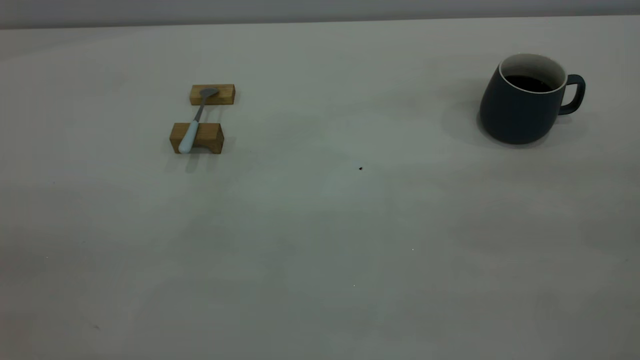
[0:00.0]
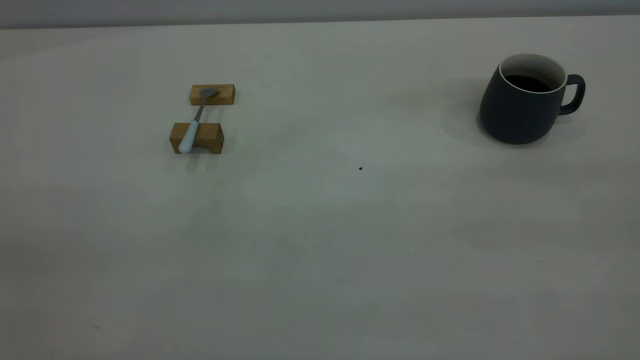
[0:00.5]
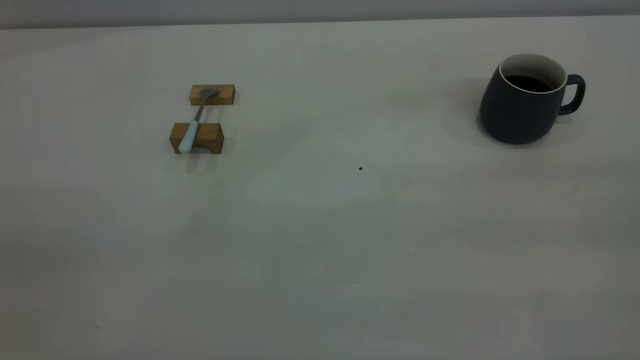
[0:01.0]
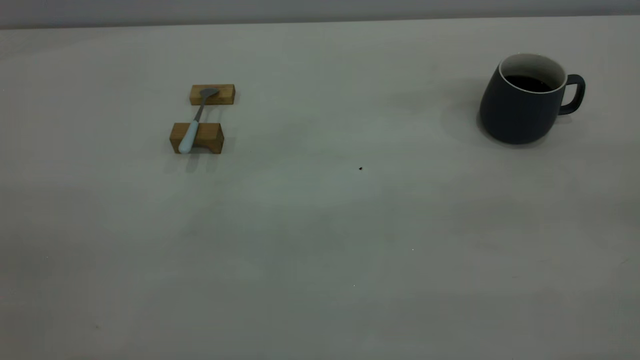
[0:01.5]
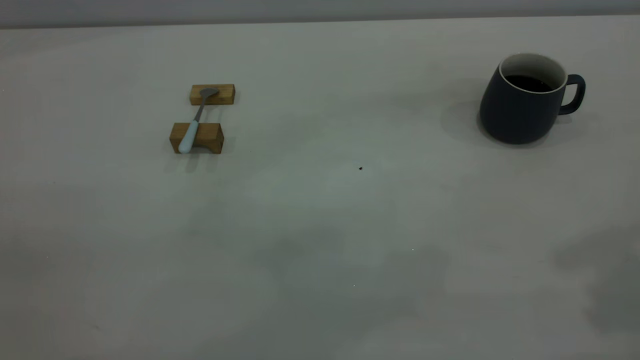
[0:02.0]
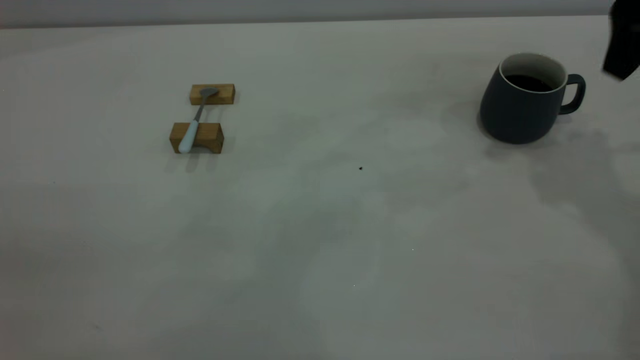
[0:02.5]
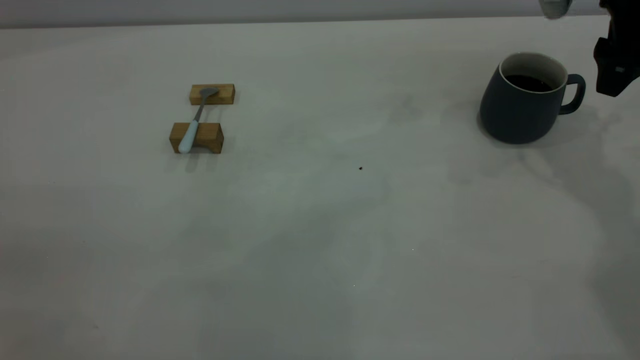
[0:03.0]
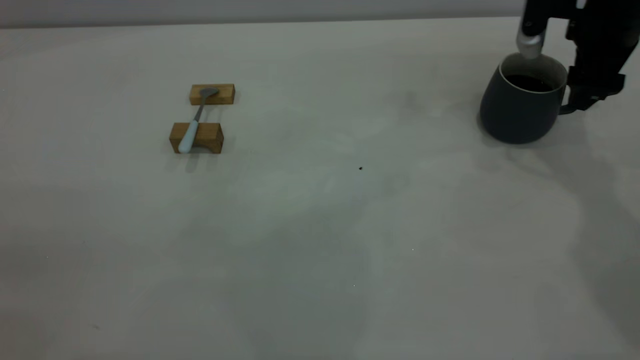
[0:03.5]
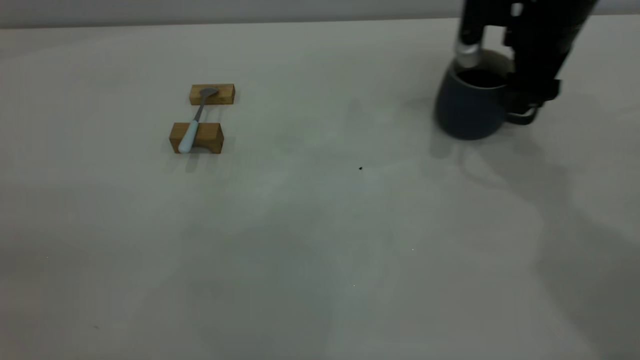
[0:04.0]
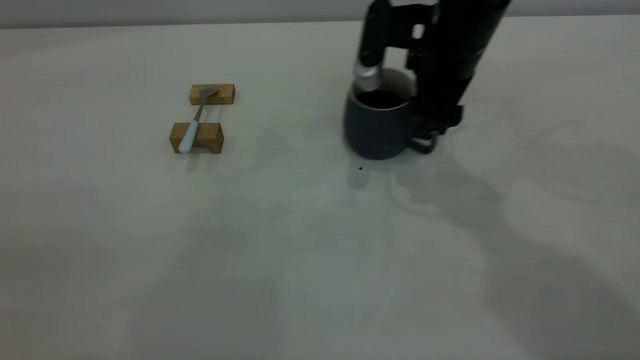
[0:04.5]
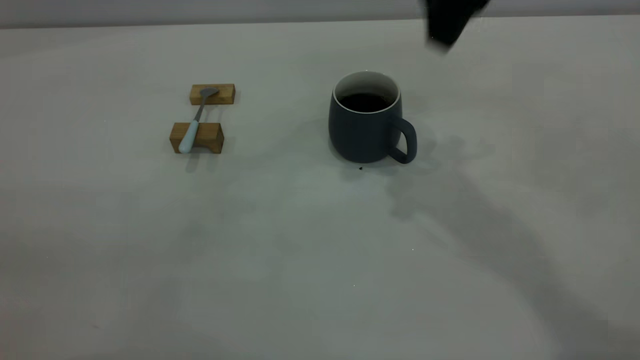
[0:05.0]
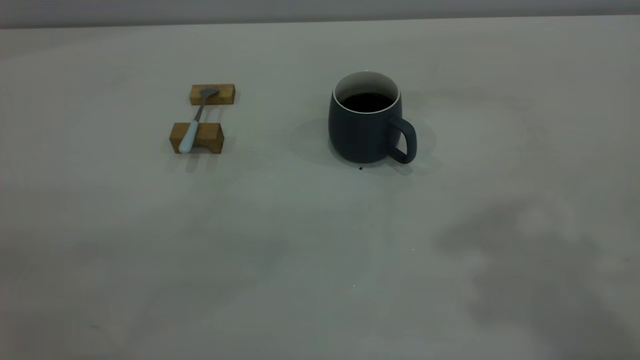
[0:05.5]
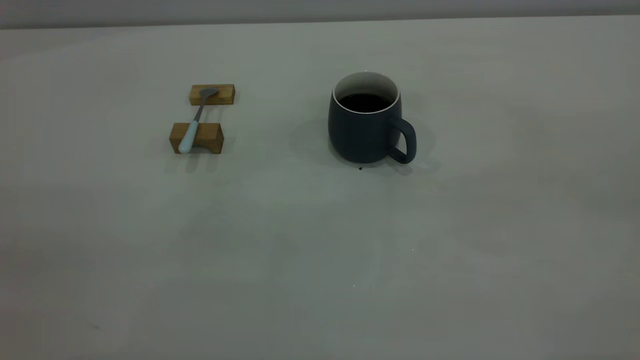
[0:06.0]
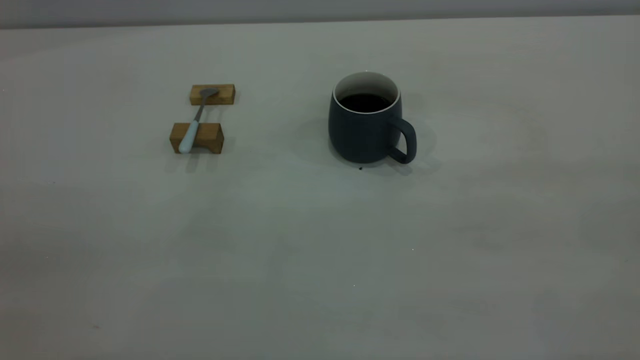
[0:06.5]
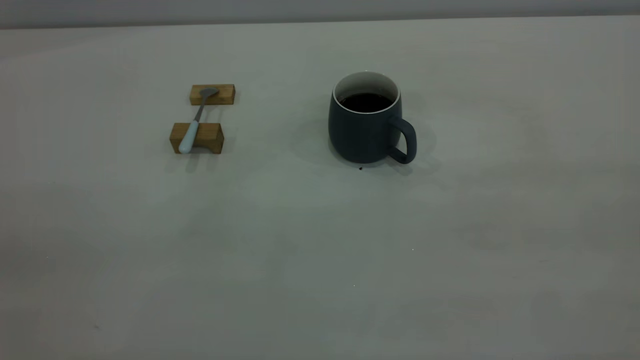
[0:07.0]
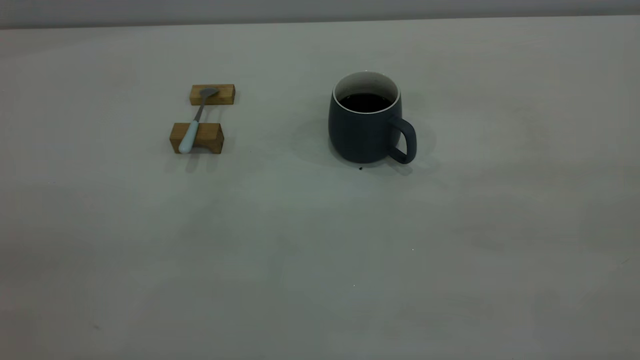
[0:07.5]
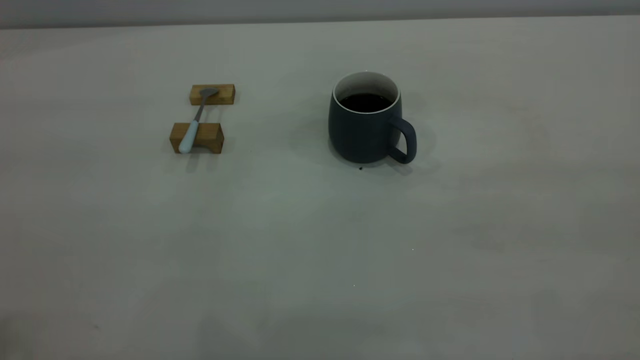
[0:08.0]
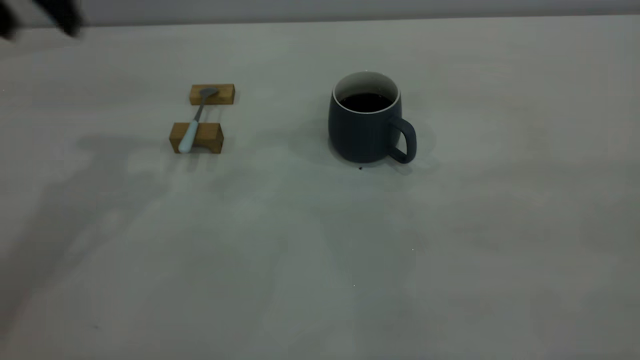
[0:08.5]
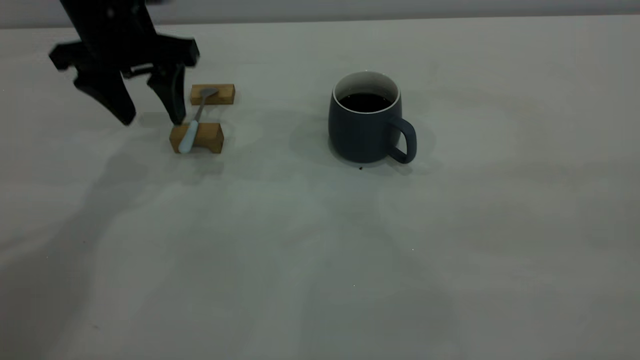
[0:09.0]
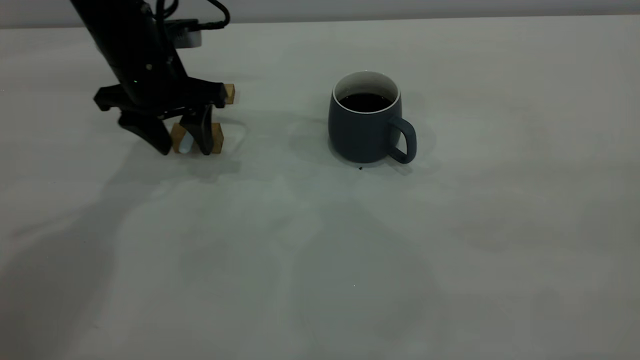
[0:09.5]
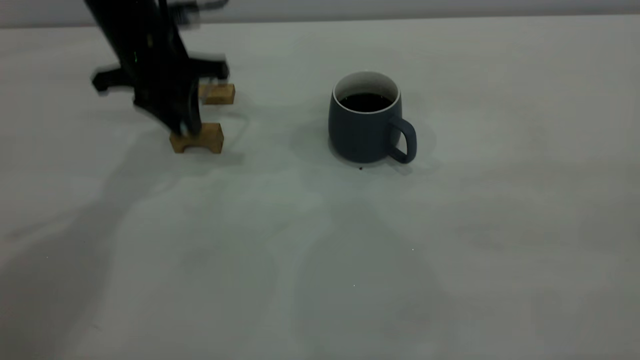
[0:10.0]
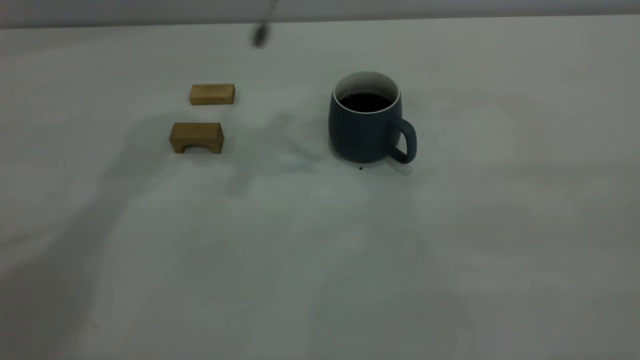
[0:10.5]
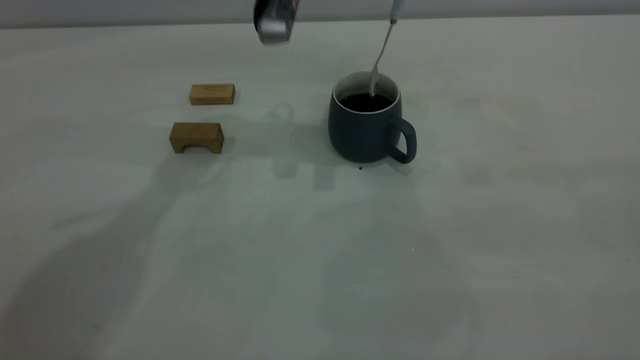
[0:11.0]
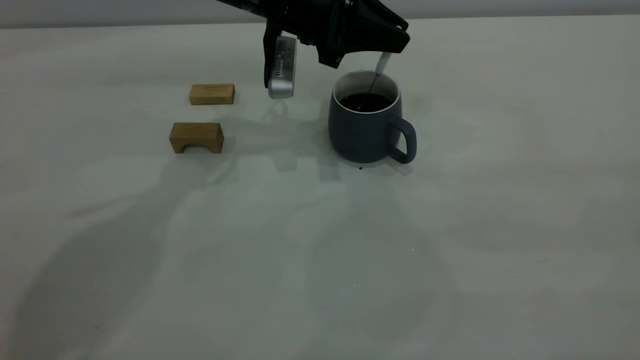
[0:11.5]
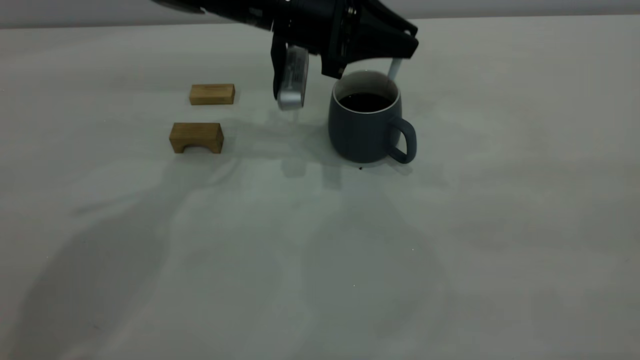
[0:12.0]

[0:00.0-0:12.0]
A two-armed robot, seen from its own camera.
Step, 0:00.0 to 0:04.5: Move the cup with coffee to the center of view.
Step, 0:05.0 to 0:10.0: Pick up the spoon.
0:02.0 to 0:04.0: The right gripper travels downward and forward by about 30 cm.
0:04.0 to 0:06.0: The right gripper shifts roughly 40 cm backward and upward.
0:08.0 to 0:10.0: The left gripper goes about 35 cm forward and downward, and closes its fingers.
0:10.0 to 0:12.0: The left gripper goes approximately 15 cm to the right, and moves about 10 cm upward and comes back.

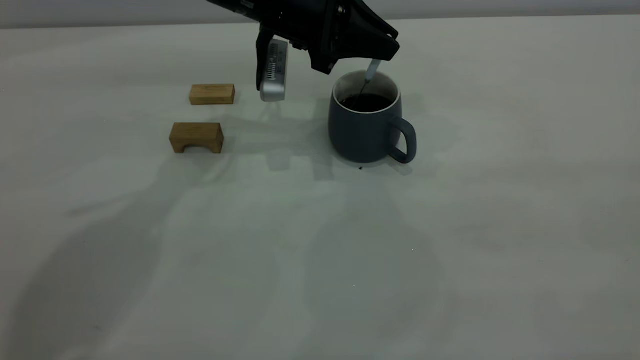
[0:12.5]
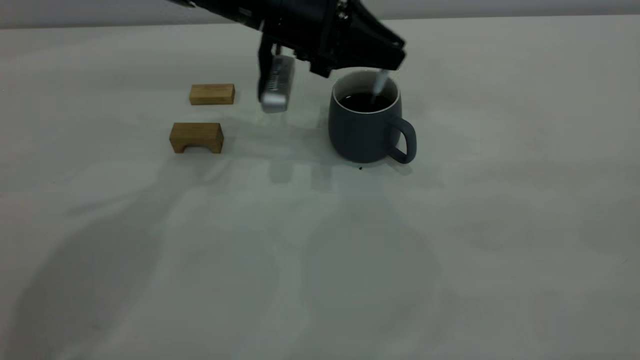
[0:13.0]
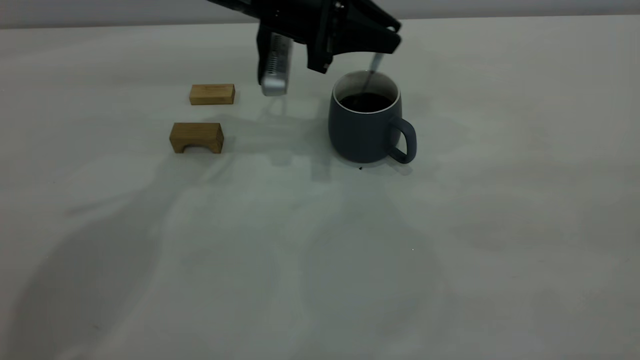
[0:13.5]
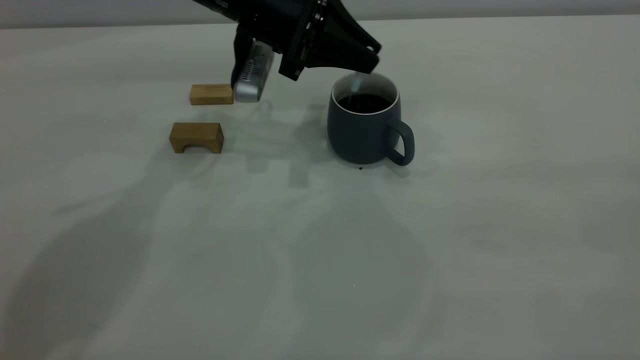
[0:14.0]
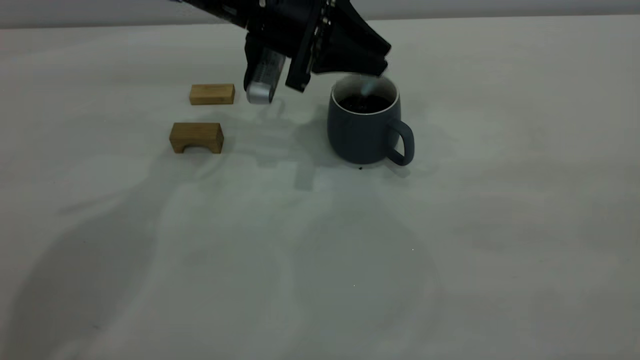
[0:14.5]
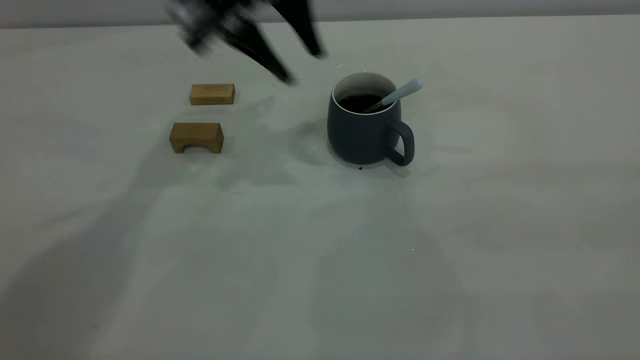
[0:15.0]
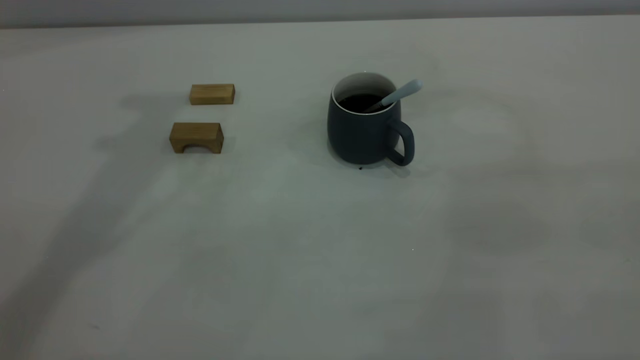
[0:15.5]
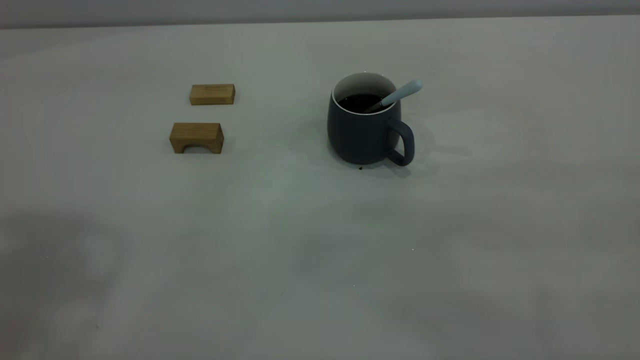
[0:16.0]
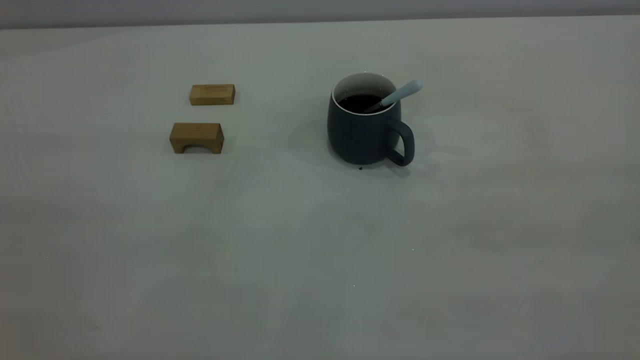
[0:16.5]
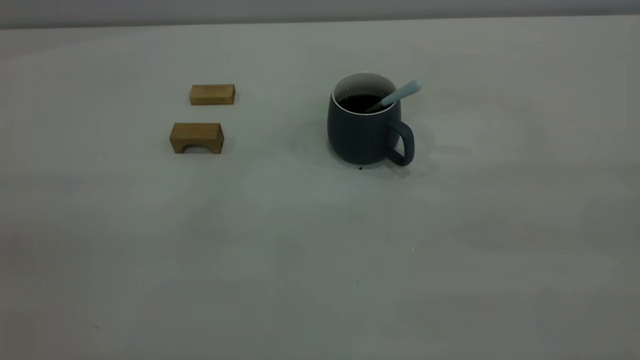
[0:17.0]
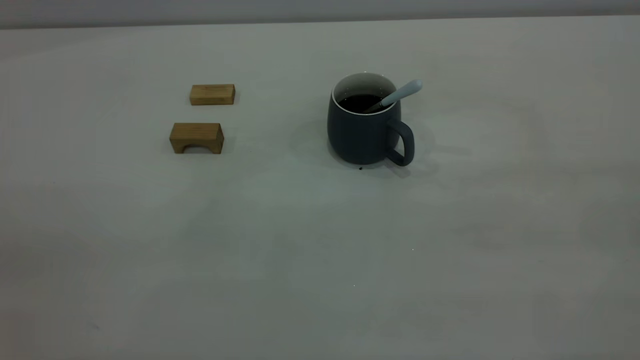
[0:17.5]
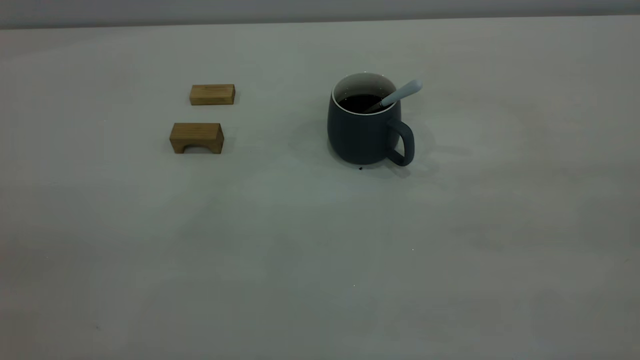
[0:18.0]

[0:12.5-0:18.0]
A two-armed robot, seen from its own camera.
Step, 0:12.5 to 0:14.5: Stir the coffee in the cup.
0:12.5 to 0:14.5: The grippers make only small movements.
0:14.5 to 0:16.0: The left gripper goes some 40 cm upward, backward and to the left.

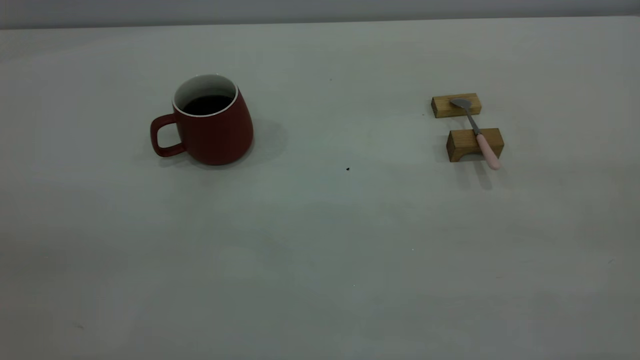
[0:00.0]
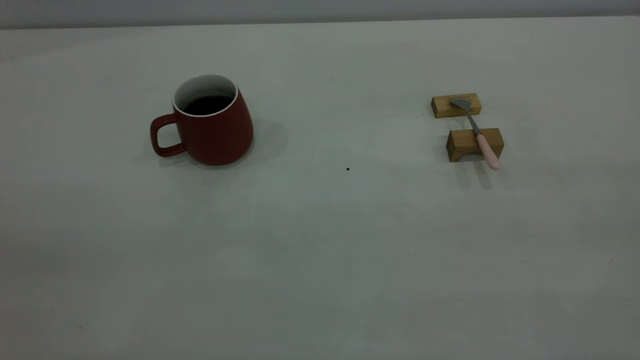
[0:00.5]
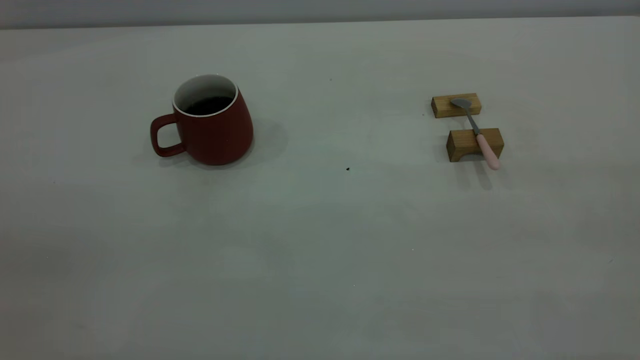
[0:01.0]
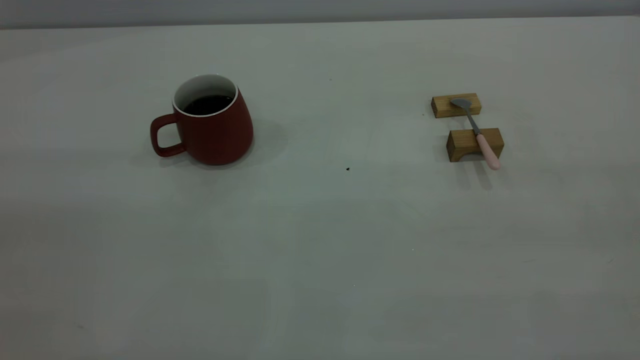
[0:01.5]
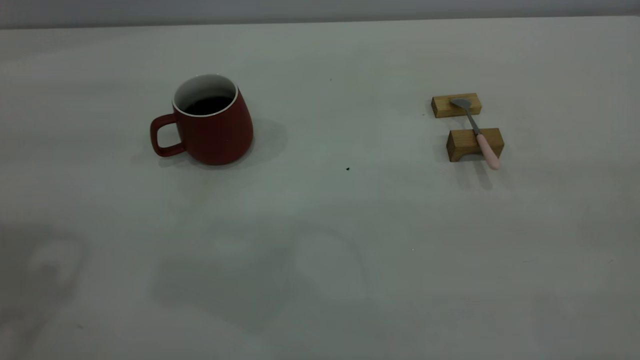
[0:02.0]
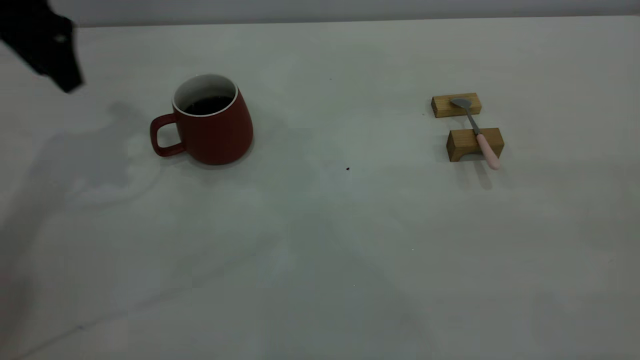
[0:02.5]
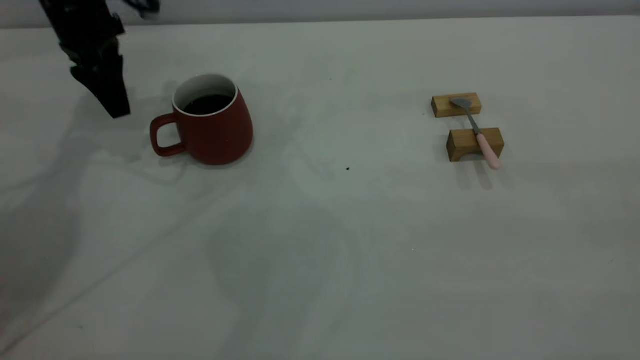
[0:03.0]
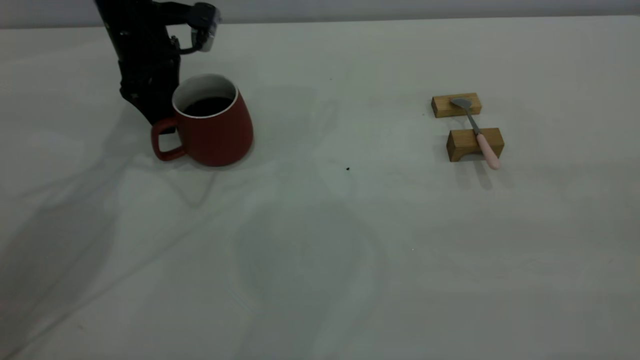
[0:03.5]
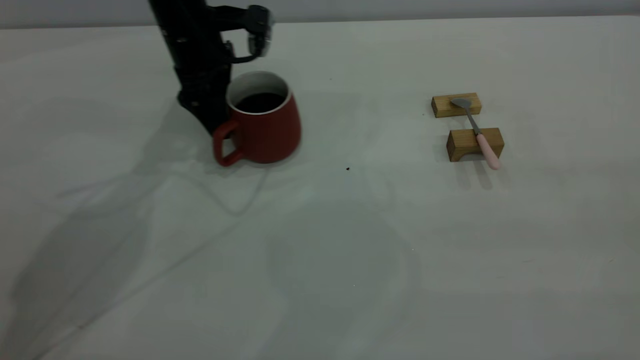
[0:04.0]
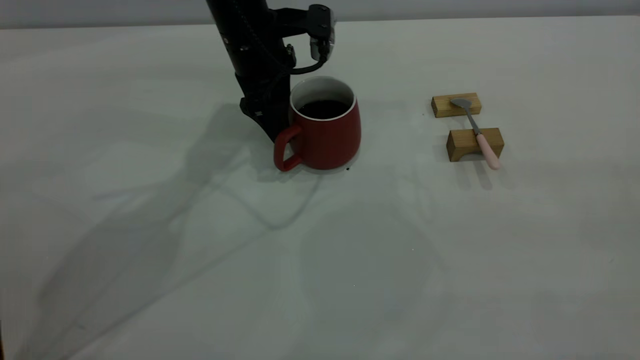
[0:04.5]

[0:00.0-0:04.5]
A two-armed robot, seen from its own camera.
0:02.0 to 0:04.5: The left gripper heads forward, to the right and downward, covering some 40 cm.
